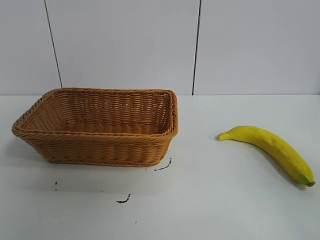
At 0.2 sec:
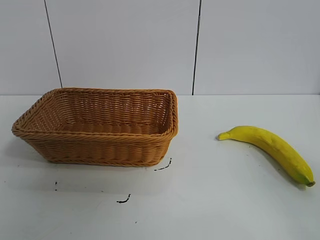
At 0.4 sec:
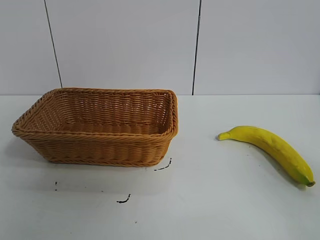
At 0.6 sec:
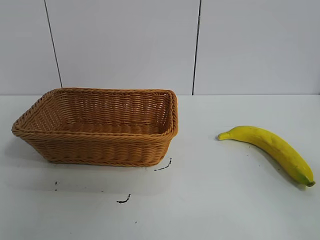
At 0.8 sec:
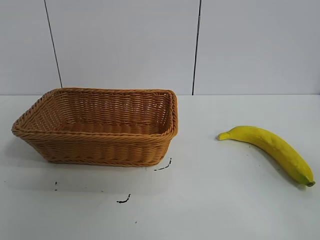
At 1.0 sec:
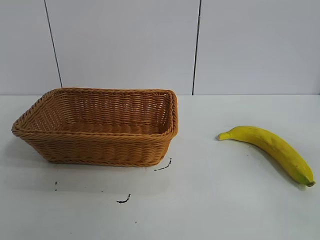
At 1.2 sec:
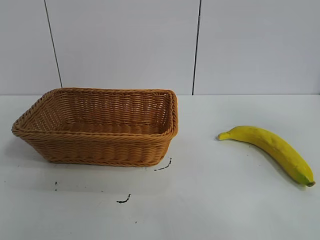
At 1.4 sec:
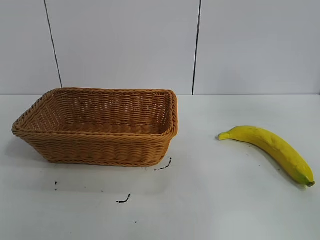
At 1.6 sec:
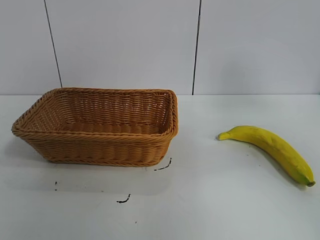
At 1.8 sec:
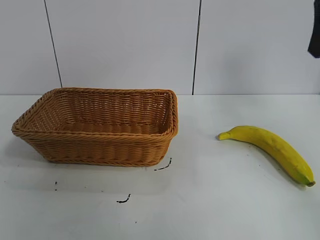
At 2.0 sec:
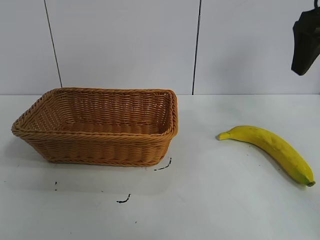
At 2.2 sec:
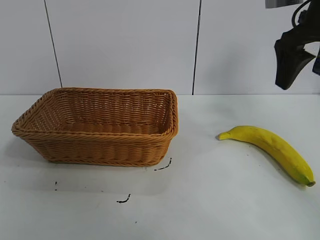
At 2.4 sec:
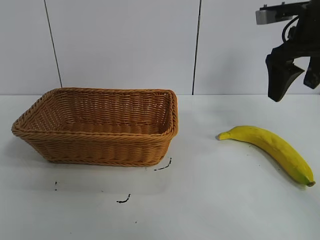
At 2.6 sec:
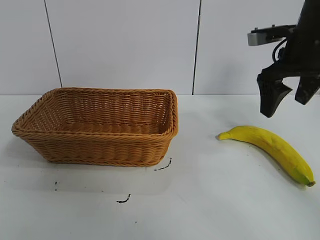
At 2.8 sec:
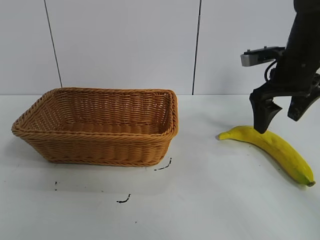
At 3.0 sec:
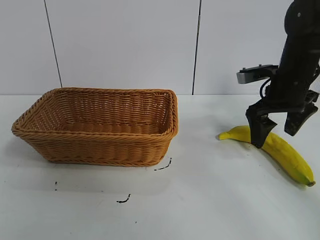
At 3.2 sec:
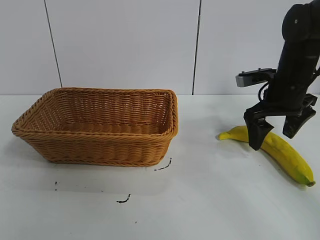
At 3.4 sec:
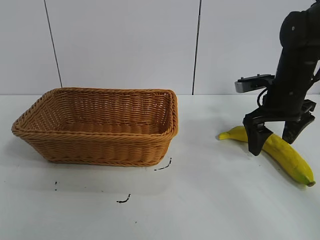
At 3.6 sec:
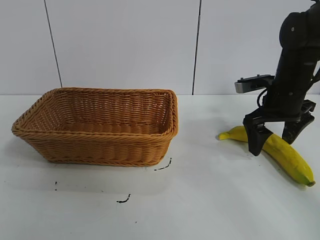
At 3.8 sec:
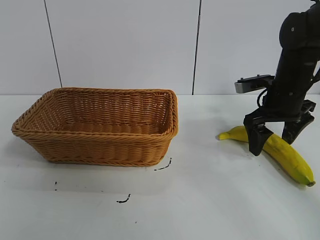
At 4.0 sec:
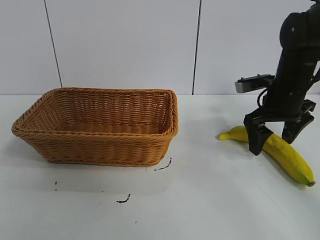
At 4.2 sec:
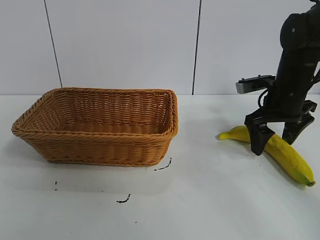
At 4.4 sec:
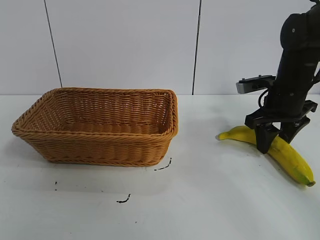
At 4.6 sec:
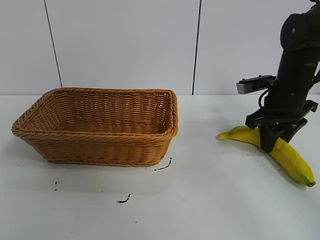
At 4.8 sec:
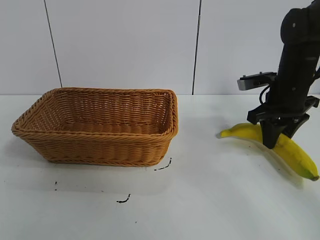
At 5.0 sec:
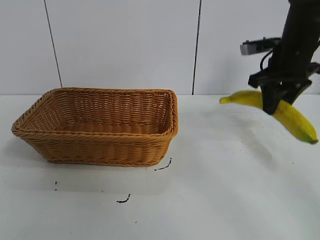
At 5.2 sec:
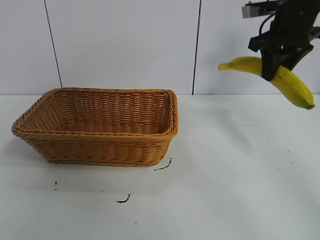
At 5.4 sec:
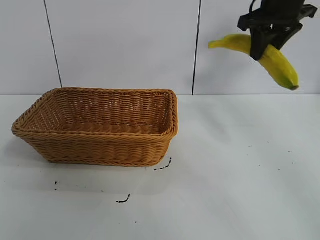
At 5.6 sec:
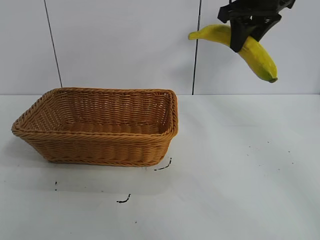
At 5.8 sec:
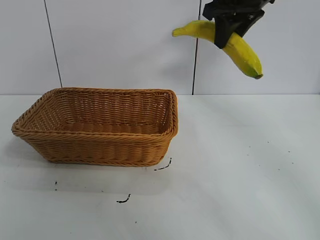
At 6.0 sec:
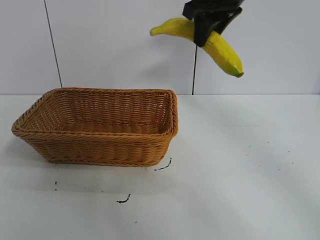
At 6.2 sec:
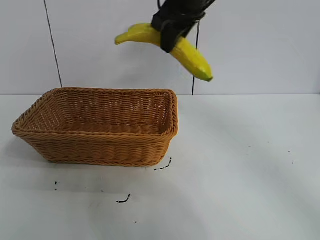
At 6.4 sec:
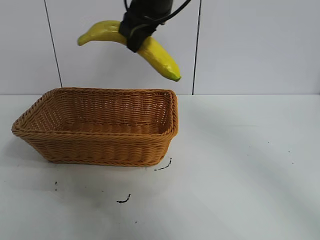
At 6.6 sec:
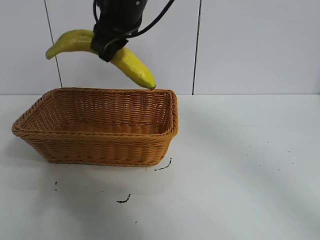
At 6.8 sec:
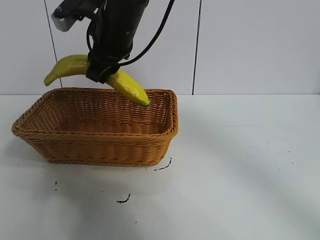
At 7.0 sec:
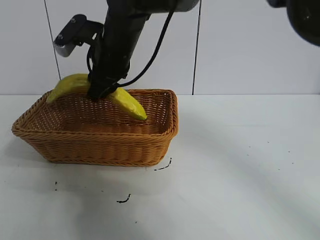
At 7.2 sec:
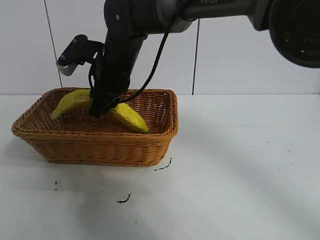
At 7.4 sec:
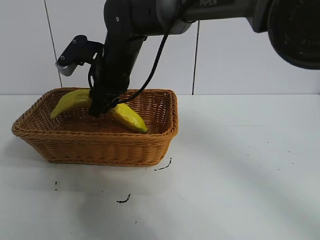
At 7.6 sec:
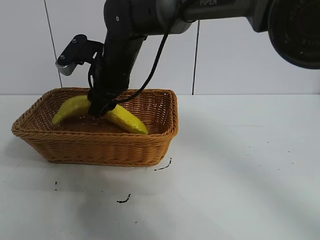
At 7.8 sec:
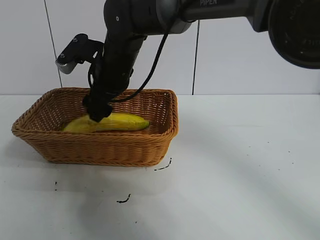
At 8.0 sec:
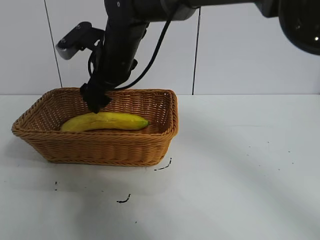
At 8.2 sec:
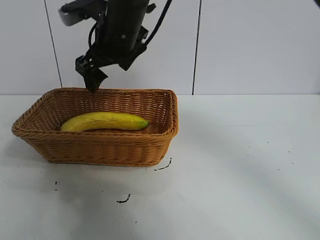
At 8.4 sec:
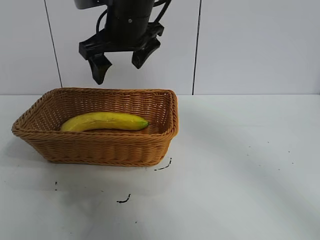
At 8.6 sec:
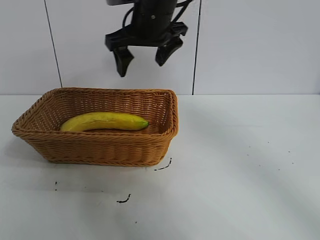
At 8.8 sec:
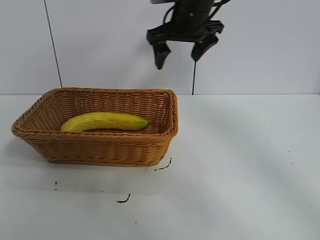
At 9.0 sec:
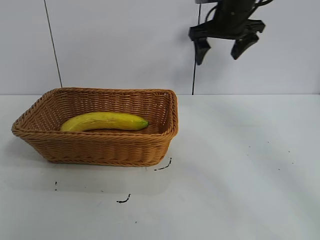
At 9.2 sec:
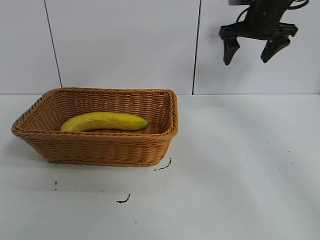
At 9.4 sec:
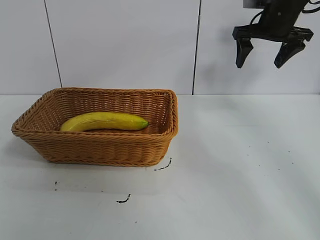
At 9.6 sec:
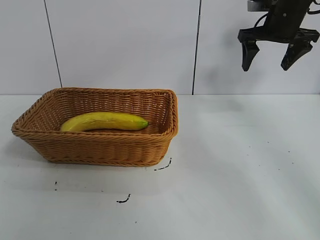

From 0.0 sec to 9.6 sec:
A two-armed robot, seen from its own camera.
Task of the whole recording: pick up the banana and put it into the basket.
Step, from 0.8 sec to 4.6 sec: Grasp the banana with right gripper.
Step, from 4.8 sec to 8.0 sec: Place the banana in the basket with right gripper.
